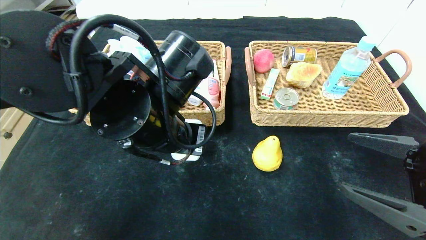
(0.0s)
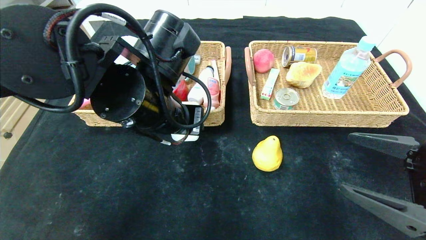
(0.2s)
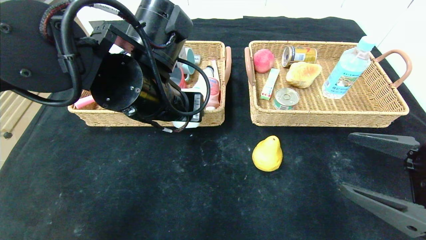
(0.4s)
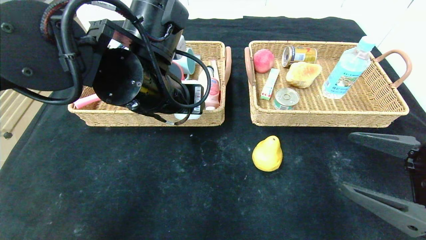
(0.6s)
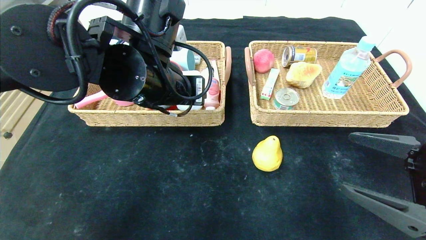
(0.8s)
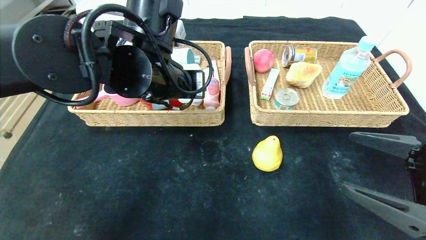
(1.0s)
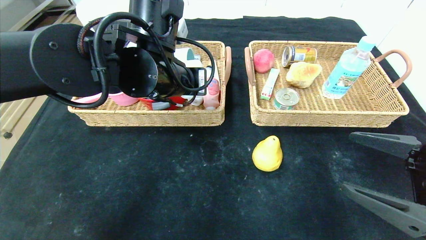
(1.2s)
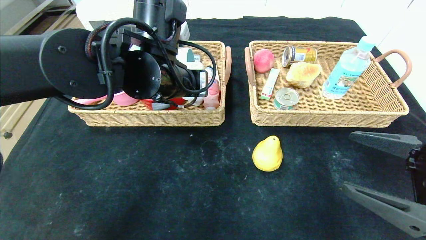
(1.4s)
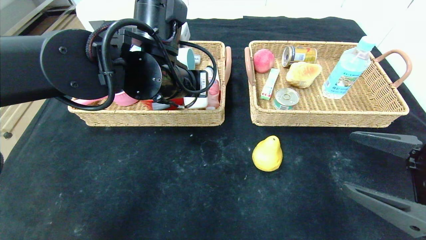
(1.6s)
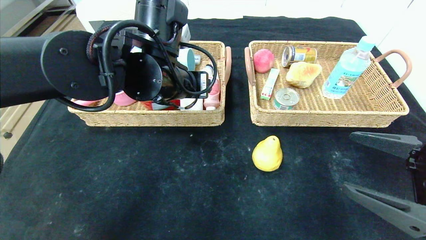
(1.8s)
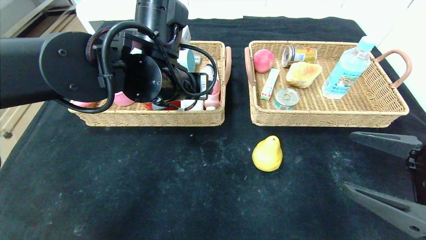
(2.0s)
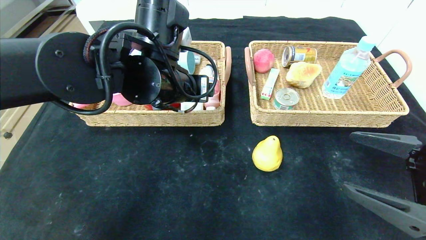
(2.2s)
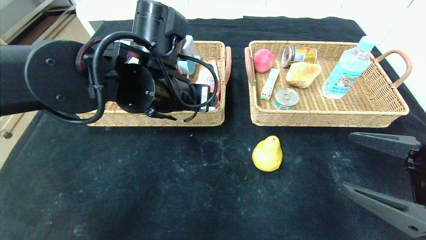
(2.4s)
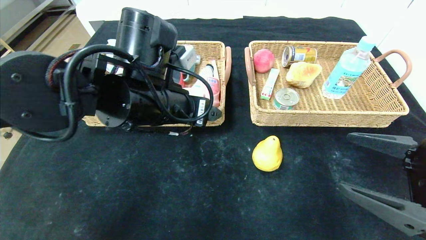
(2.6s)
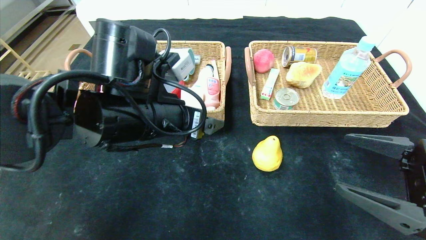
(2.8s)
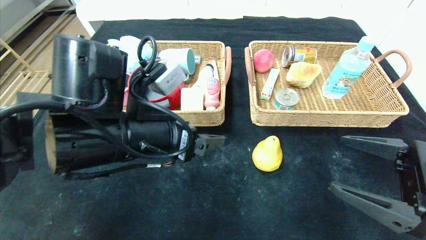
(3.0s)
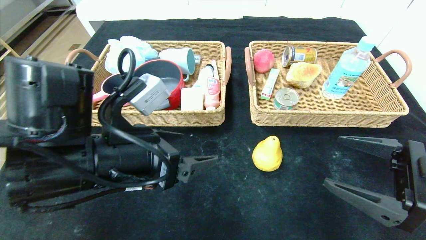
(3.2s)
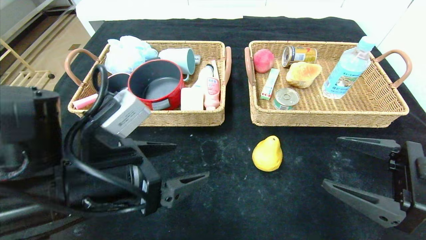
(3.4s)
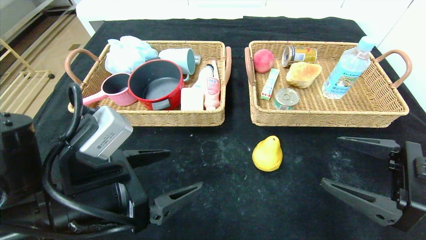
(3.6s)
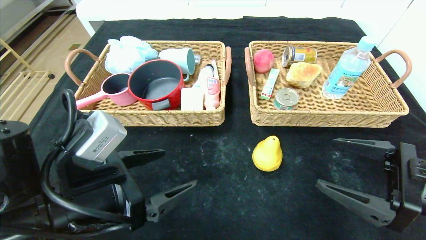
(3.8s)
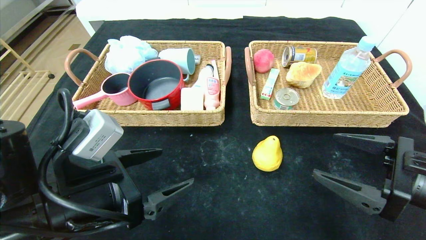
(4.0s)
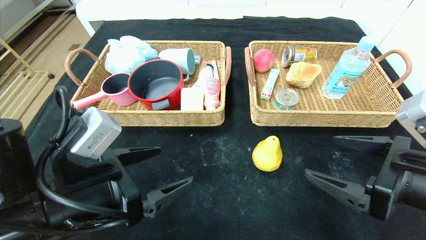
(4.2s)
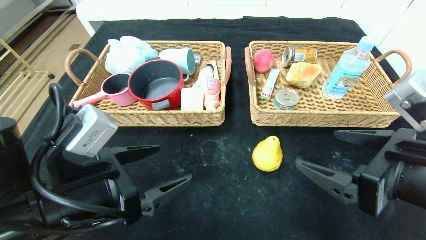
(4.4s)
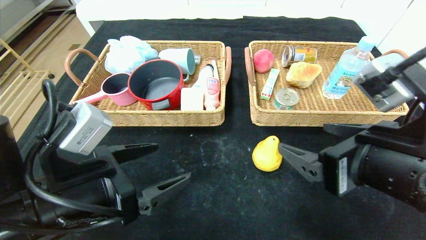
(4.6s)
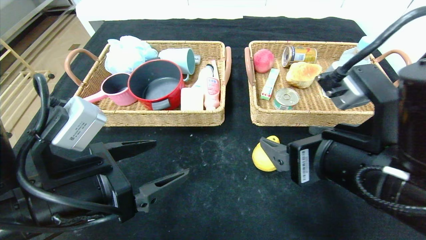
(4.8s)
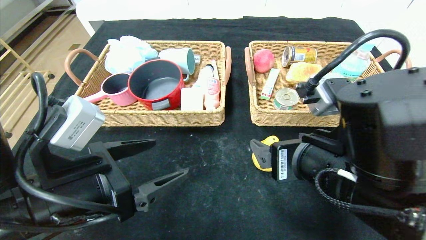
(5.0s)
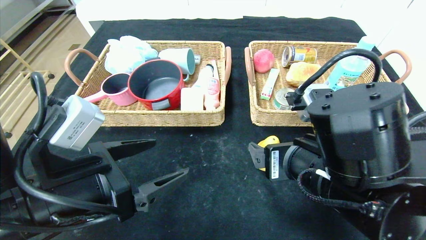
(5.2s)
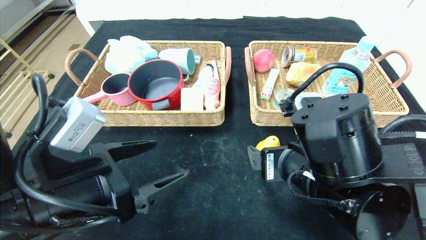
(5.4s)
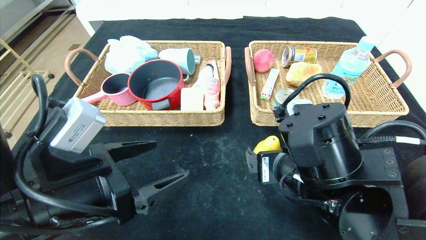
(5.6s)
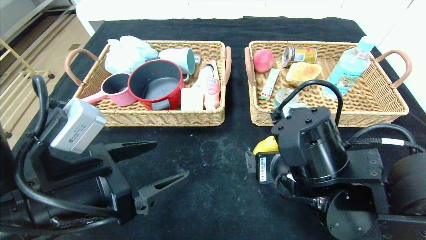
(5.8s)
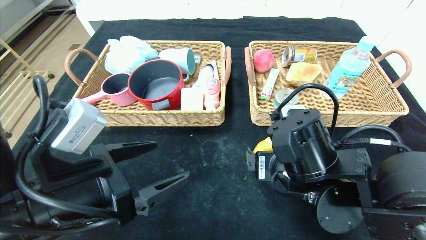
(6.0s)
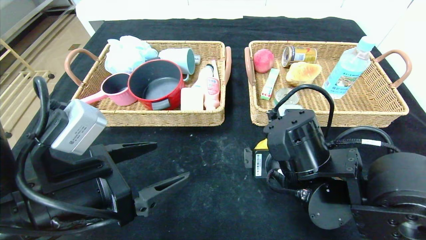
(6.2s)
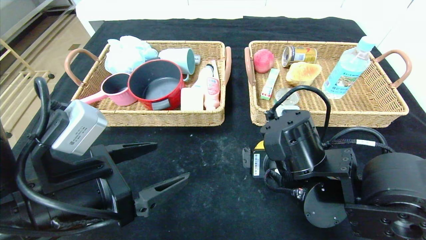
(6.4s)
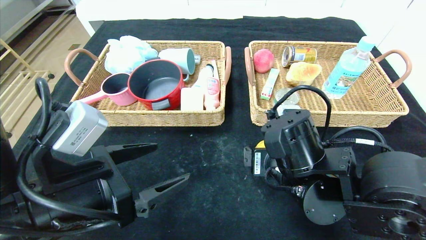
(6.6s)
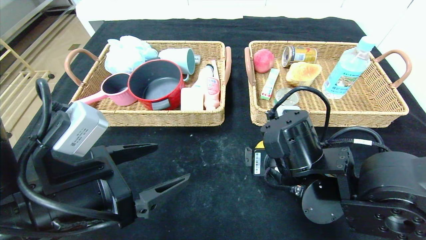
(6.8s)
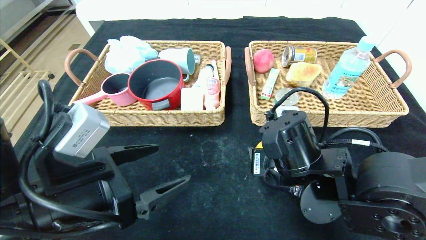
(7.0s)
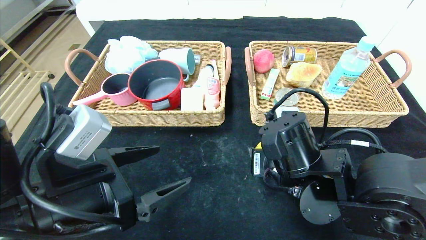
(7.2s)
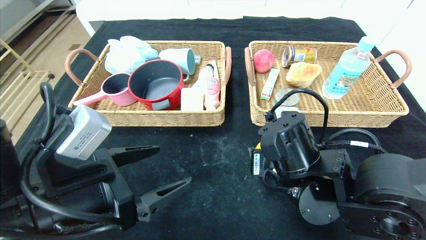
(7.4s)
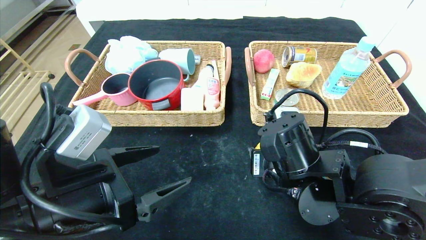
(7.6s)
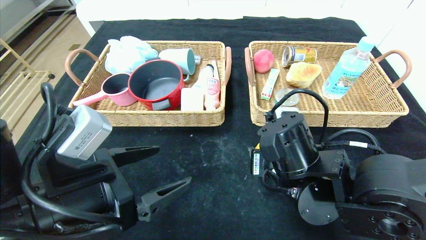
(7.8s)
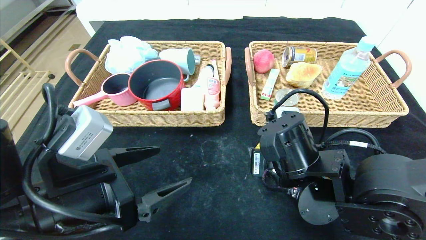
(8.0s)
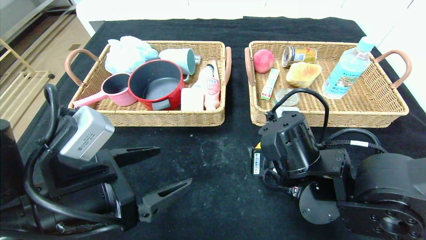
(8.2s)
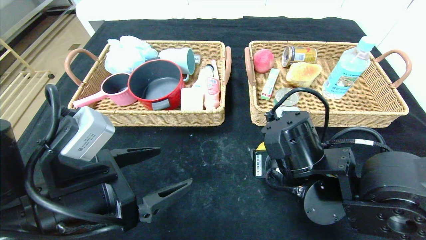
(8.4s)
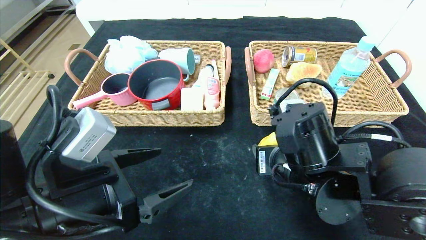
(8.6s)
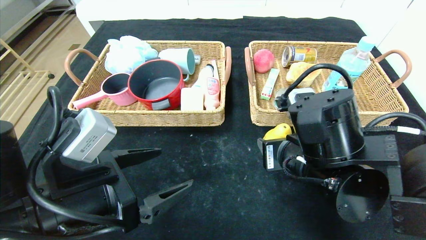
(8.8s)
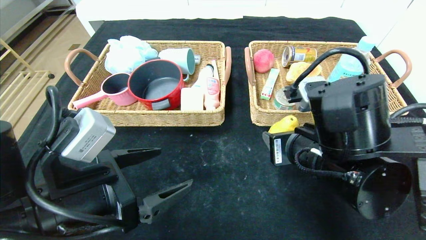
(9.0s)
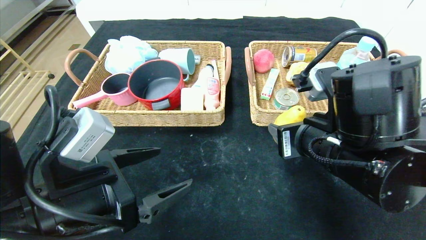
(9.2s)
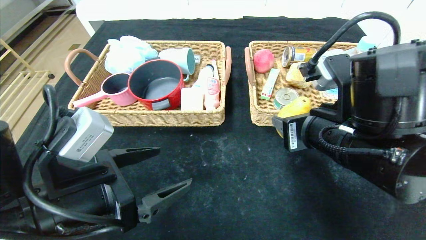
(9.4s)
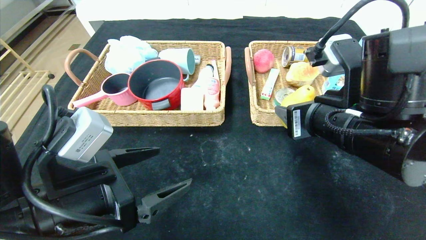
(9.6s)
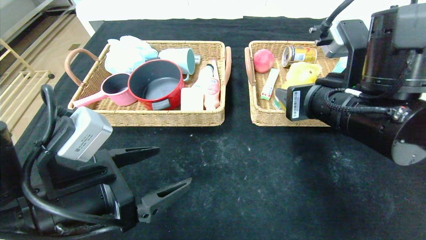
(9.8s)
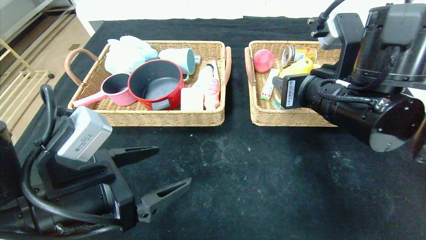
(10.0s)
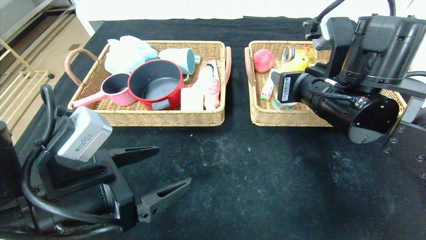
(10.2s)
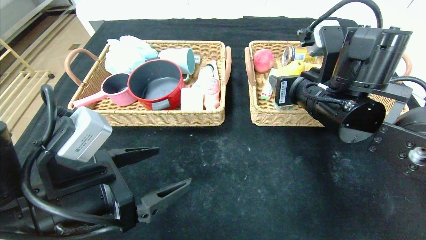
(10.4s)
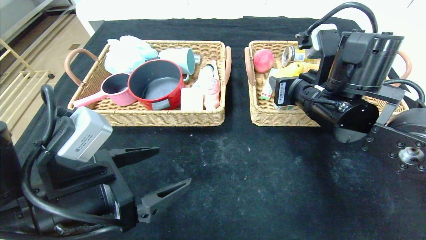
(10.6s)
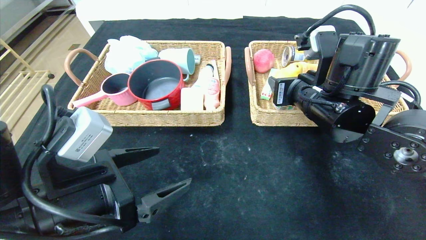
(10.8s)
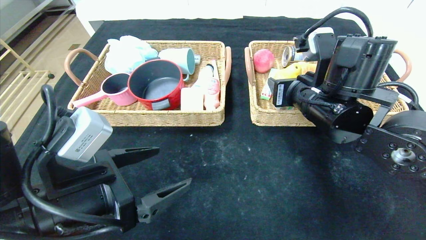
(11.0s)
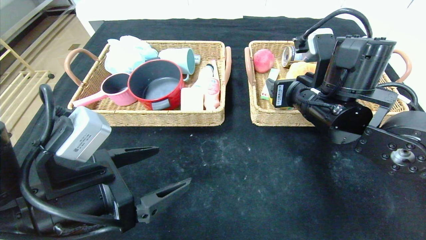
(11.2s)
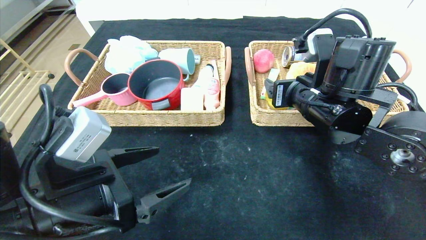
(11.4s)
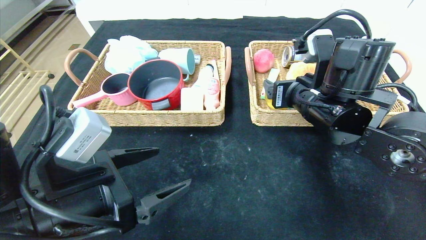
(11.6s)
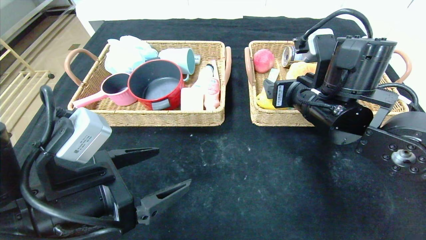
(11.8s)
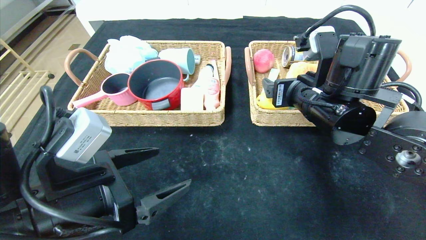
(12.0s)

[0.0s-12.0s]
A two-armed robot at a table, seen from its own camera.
Step, 0.0s to 2.2s: Grasp the soap and put it in the left basket.
Step, 2.4s to 11.8s: Grasp the pear and put it in the right basket.
0.0s to 1.6s: The left gripper travels forward by about 5 cm.
1.6s to 3.0s: The left gripper moves backward, about 10 cm.
3.0s to 4.4s: The right gripper is displaced to the left by about 5 cm, while the left gripper heads to the left and backward, covering roughly 10 cm.
4.4s to 6.0s: The right gripper moves to the left, forward and downward, approximately 15 cm.
6.0s to 7.6s: The right gripper closes up.
7.6s to 9.0s: The right gripper moves upward, approximately 5 cm.
9.0s to 10.4s: The right gripper goes approximately 10 cm forward.
10.4s to 12.0s: The right gripper opens its fingers.

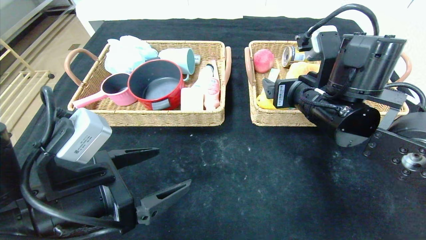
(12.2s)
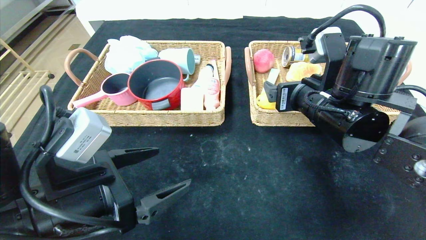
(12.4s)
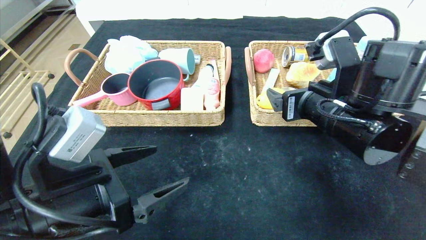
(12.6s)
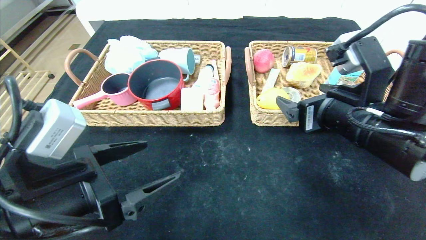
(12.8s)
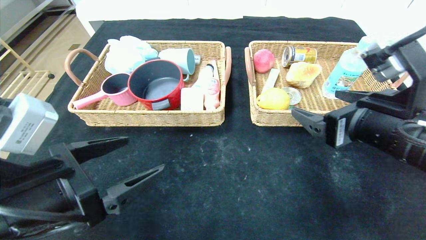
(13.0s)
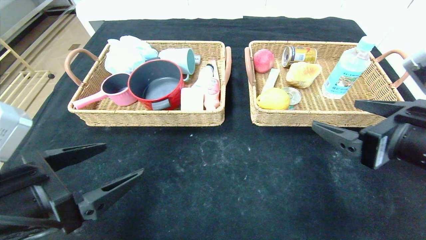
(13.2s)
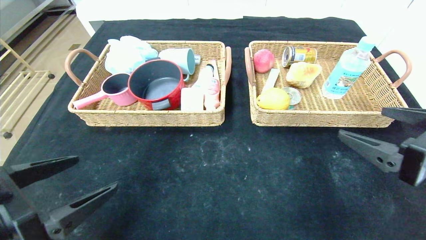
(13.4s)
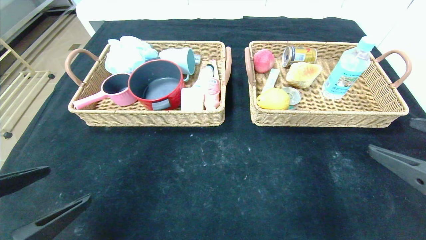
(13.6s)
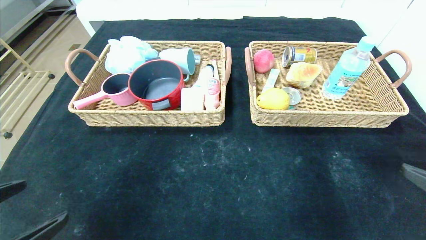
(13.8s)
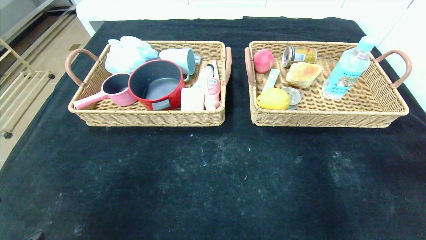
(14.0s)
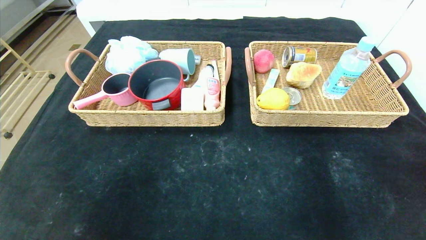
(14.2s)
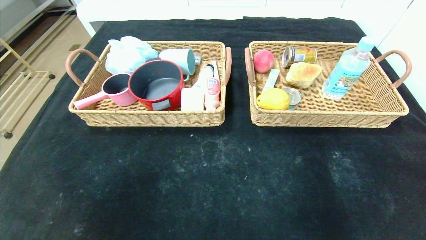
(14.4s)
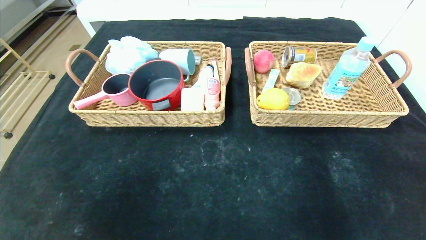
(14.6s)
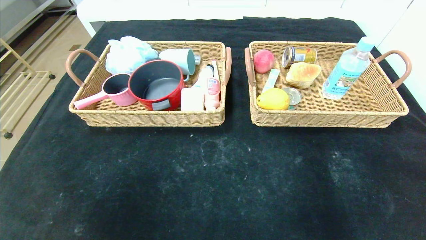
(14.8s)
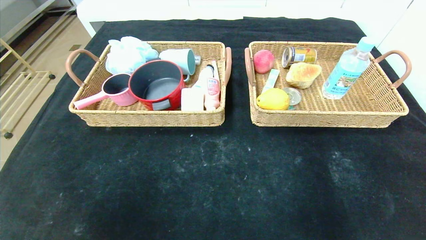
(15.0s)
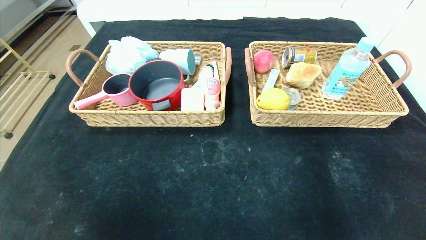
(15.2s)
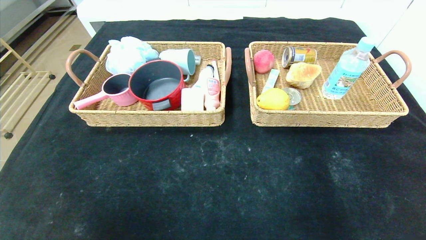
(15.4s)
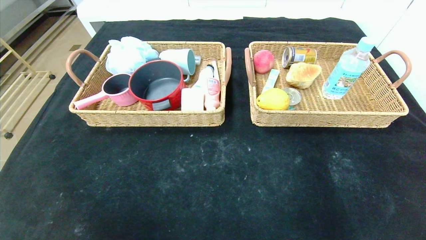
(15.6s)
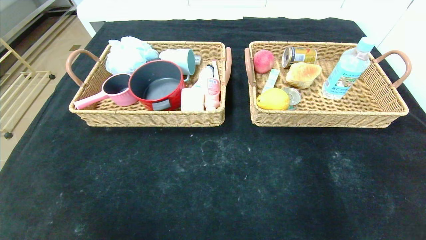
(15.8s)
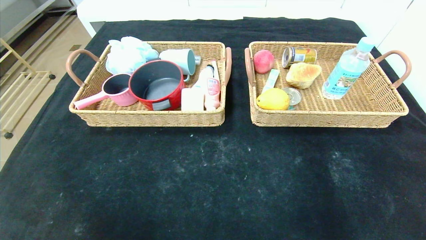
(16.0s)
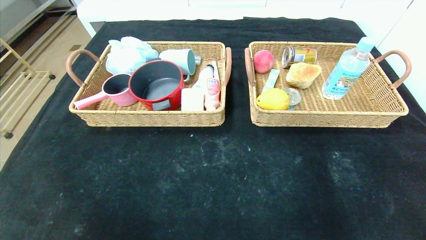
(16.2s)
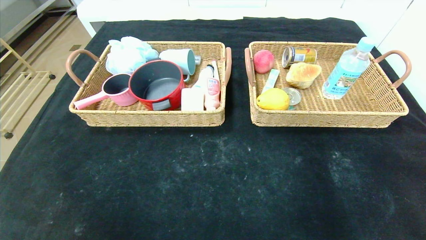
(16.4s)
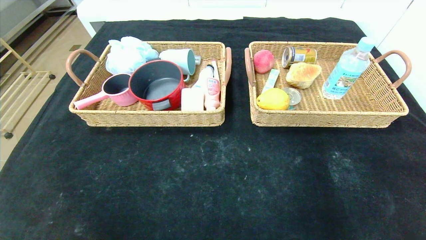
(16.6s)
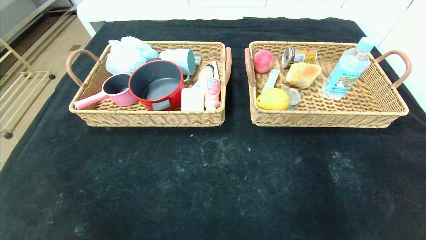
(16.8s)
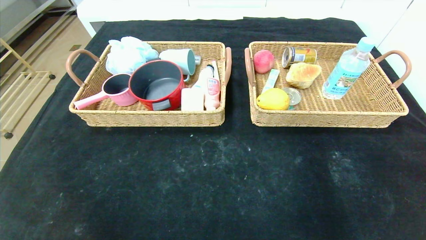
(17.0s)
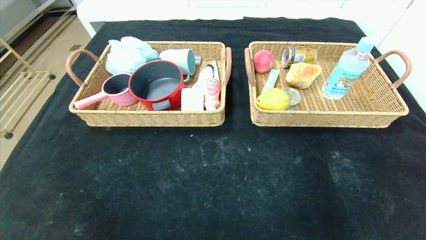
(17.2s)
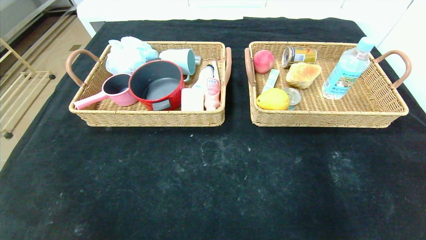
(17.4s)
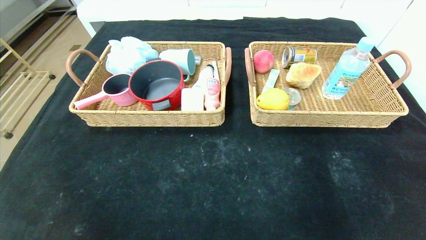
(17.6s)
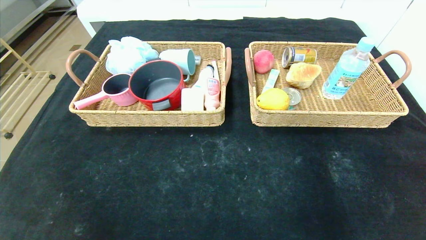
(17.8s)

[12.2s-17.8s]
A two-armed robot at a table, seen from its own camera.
12.2s to 13.6s: The right gripper travels backward and to the right by about 25 cm. The left gripper shifts approximately 10 cm backward and to the left.
13.6s to 15.0s: Both grippers move backward, roughly 15 cm.
